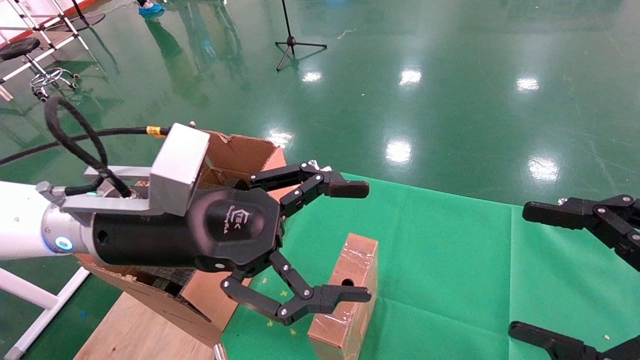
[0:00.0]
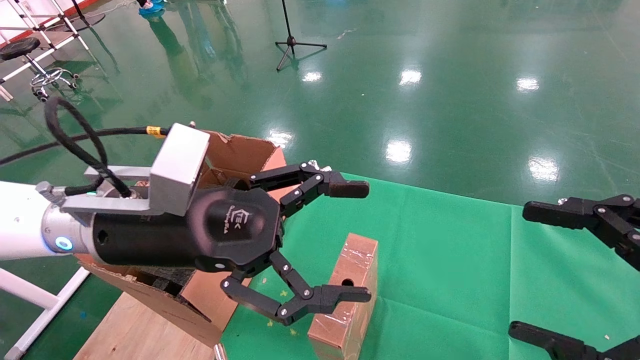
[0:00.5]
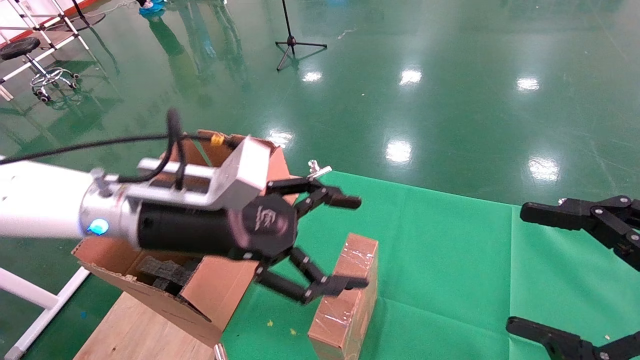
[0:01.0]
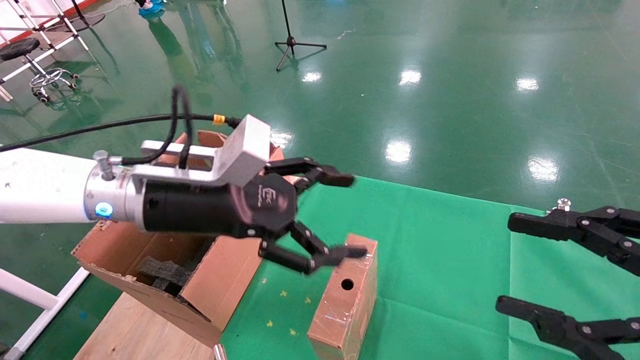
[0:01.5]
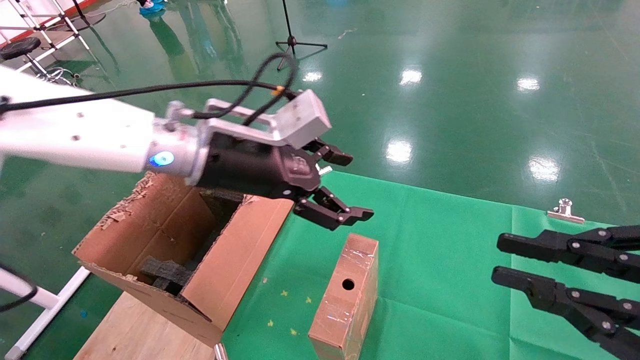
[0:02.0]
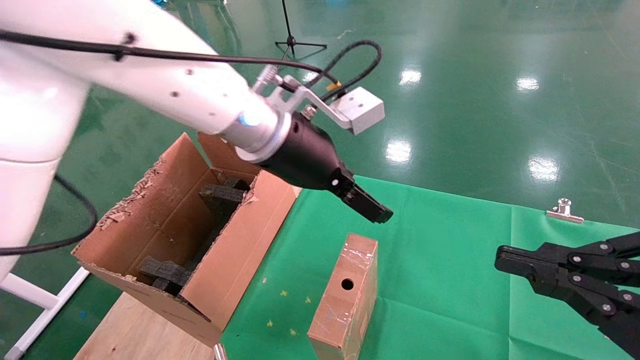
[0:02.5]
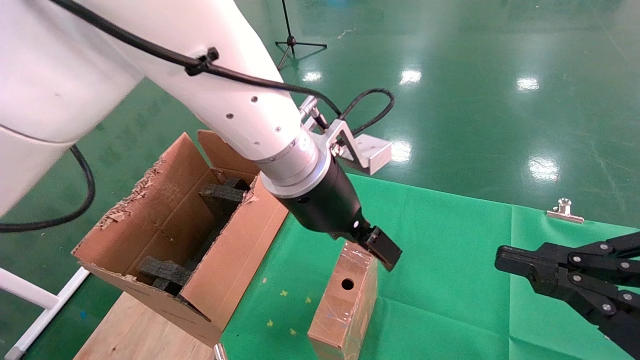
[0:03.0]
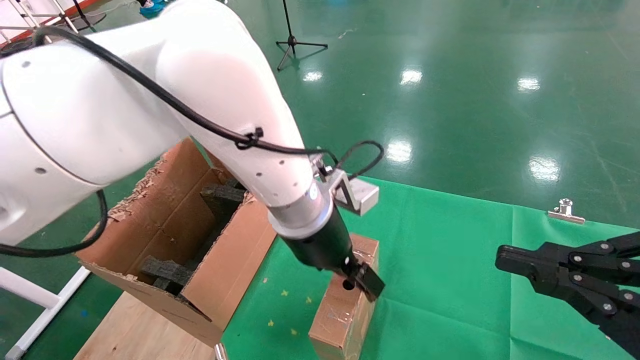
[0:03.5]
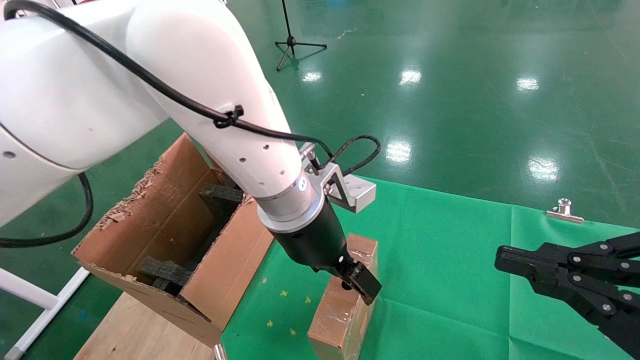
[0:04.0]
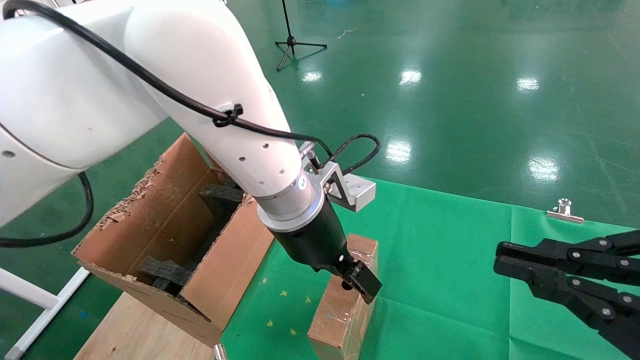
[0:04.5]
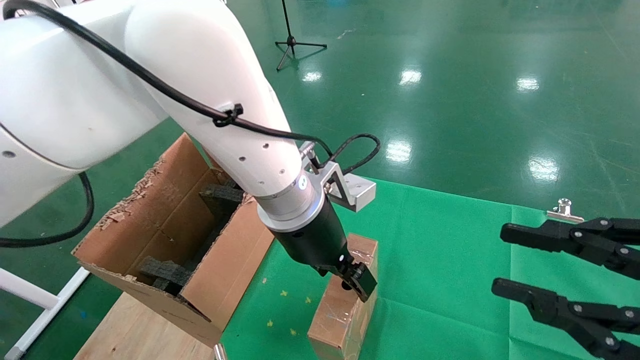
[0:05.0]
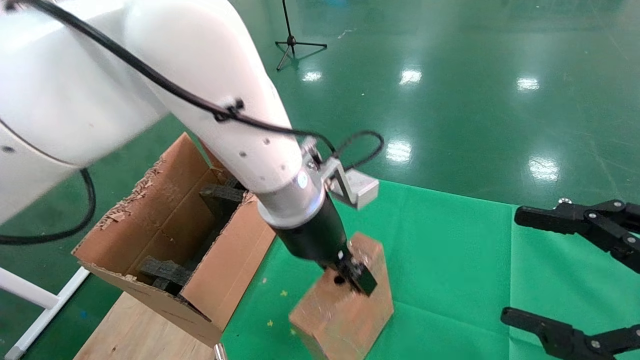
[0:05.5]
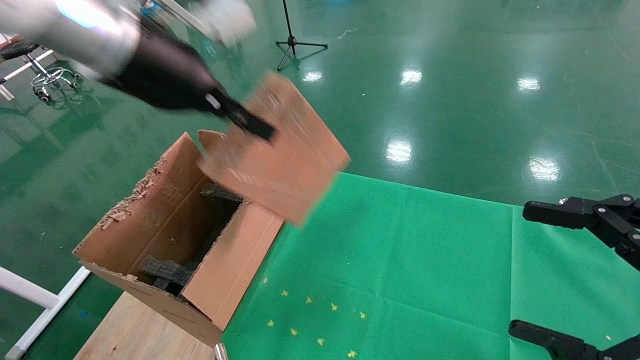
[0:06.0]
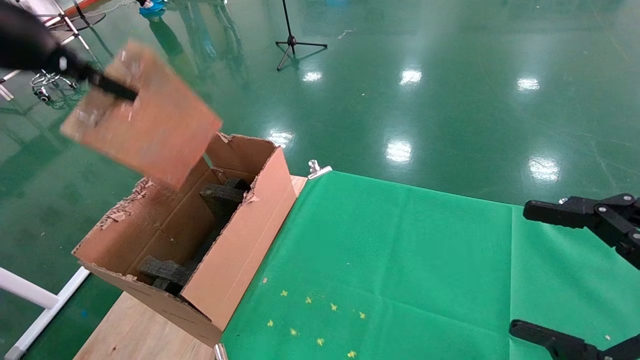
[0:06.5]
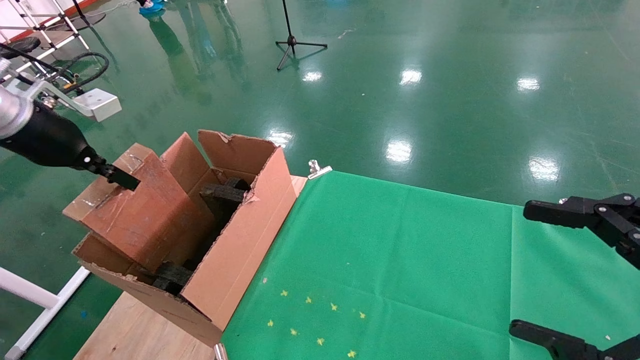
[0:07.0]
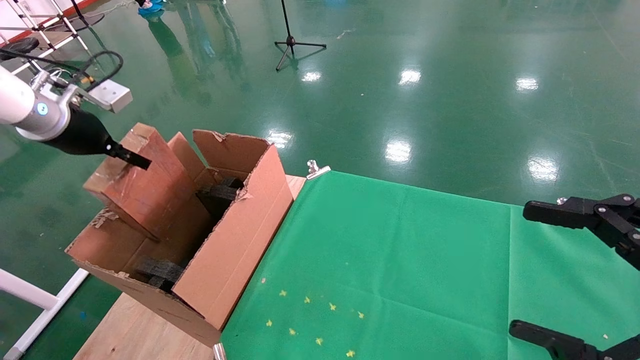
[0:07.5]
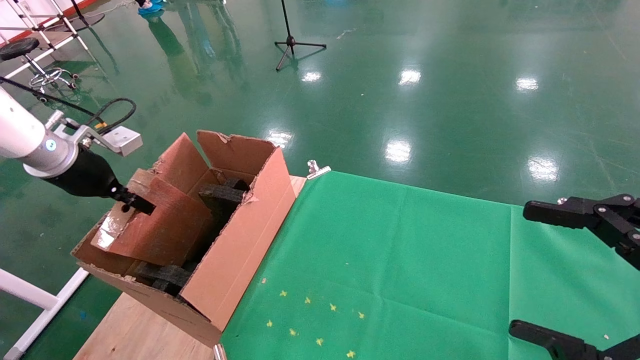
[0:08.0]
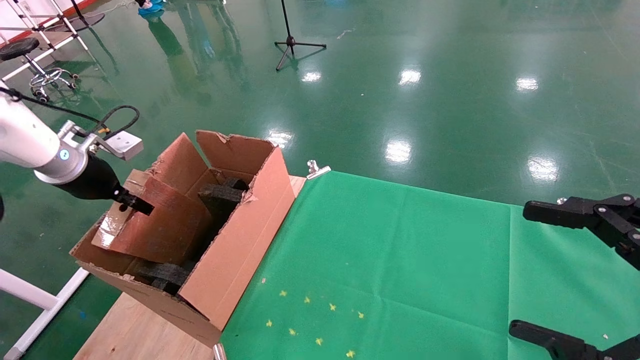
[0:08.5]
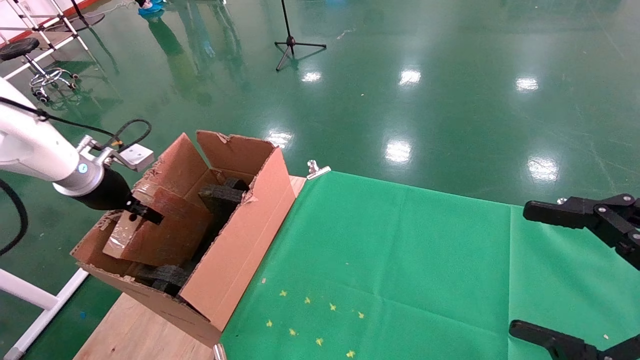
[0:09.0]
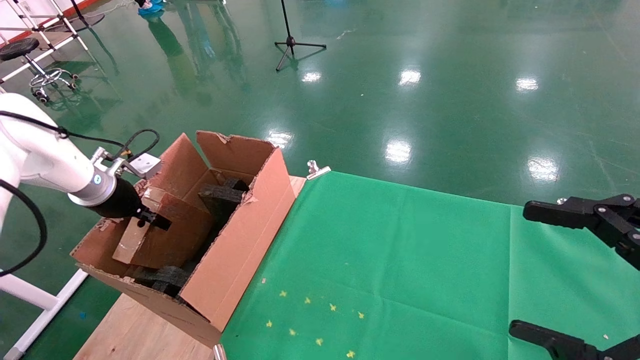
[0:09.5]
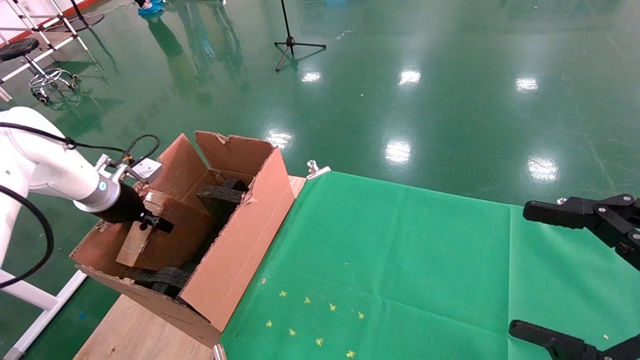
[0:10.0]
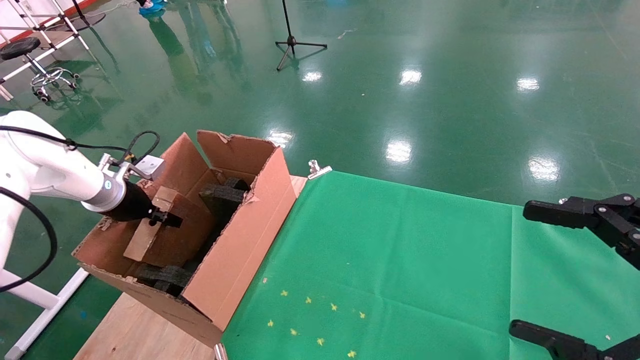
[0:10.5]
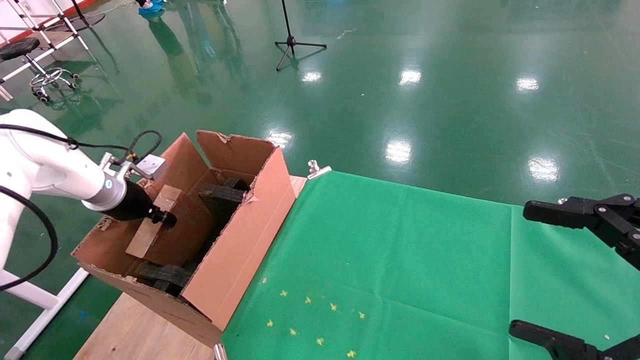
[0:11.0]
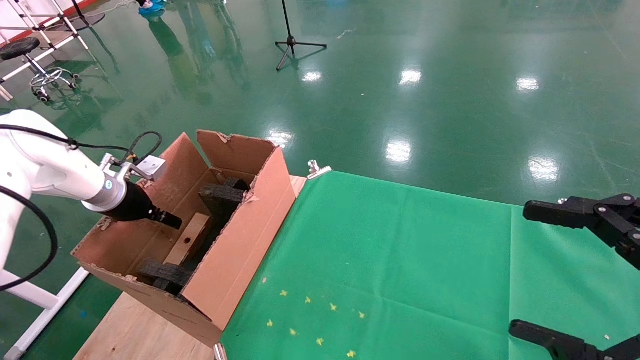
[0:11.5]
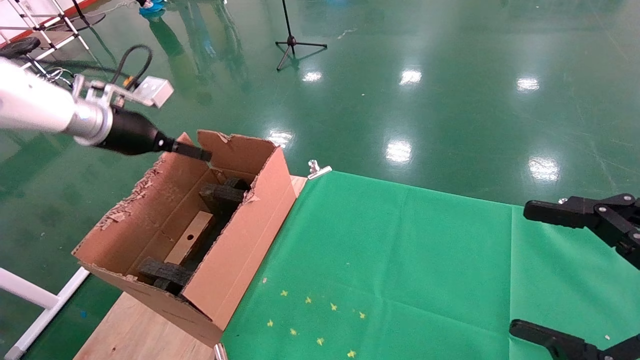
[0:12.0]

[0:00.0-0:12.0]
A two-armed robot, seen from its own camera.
Task of the whole recording: using a robotic arm to pick up a cardboard box and palace it the carton.
Step, 0:01.0 to 0:05.0: Pick up the mouse and the power cord paper box.
Step, 0:05.5 to 0:11.5: Place the mouse and the power cord paper box into the container.
0:00.0 to 0:02.0: The right gripper closes; the left gripper travels forward by about 10 cm.
0:02.0 to 0:04.0: The left gripper goes roughly 10 cm to the right.
0:04.0 to 0:06.0: The right gripper opens its fingers; the left gripper heads upward and to the left, covering approximately 25 cm, and closes.
0:06.0 to 0:08.0: The left gripper shifts approximately 30 cm to the left and downward.
0:08.0 to 0:10.0: The left gripper travels downward by roughly 10 cm.
0:10.0 to 0:12.0: The left gripper goes roughly 10 cm upward, and opens.

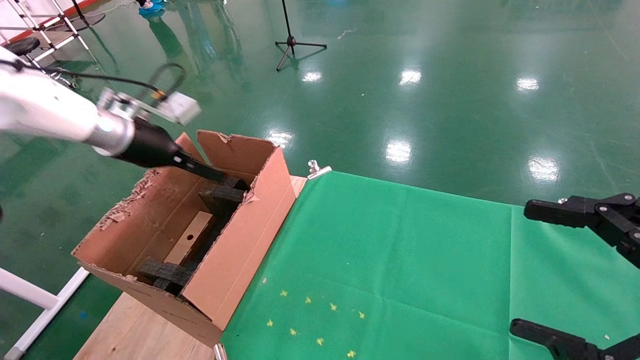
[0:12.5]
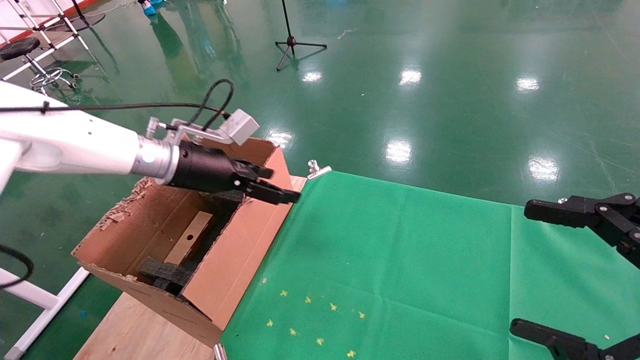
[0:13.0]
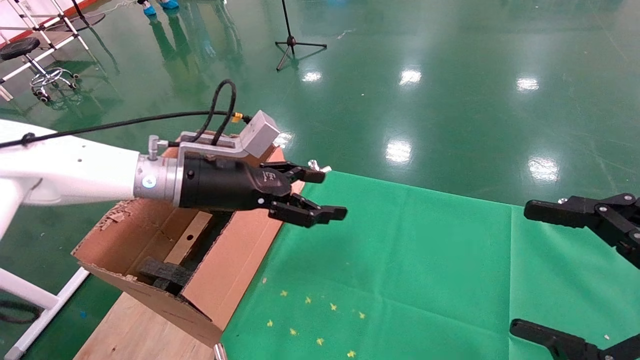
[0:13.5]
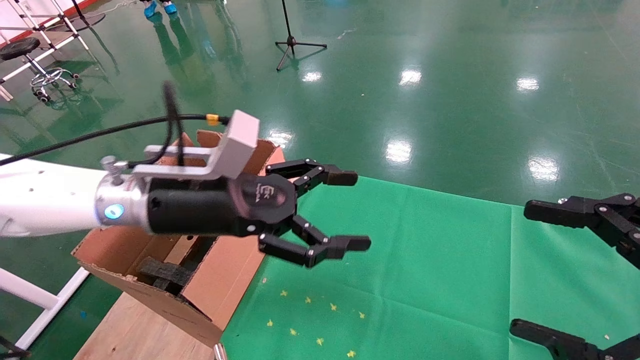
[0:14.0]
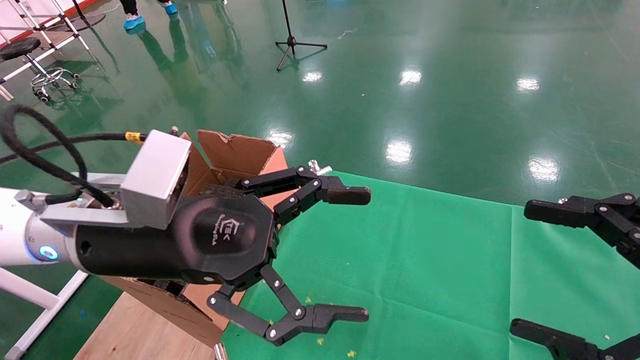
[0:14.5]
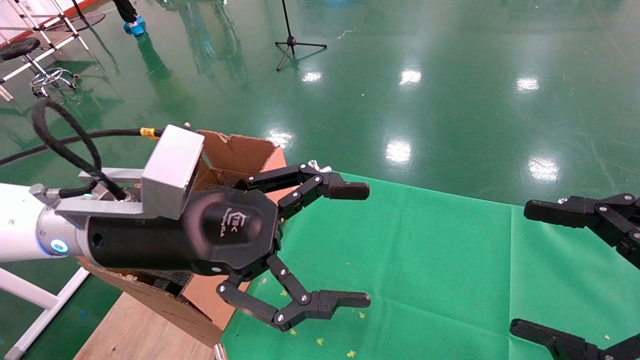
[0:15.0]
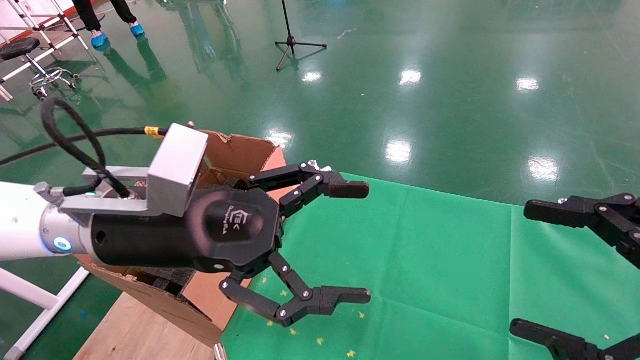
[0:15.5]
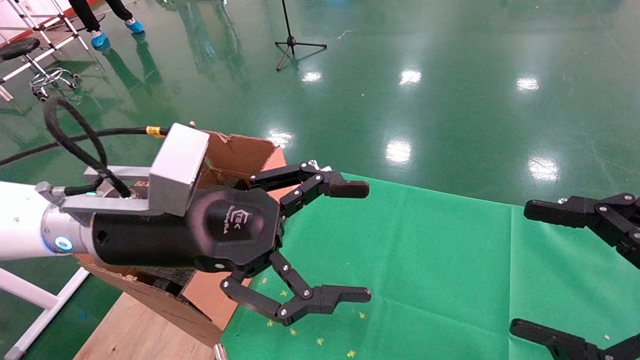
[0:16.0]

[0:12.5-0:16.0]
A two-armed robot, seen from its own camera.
Task of the whole recording: using a robotic arm to pick up a cardboard box and palace it the carton.
0:12.5 to 0:14.5: The left gripper travels backward and to the right by about 25 cm.
0:14.5 to 0:16.0: Both grippers stay about where they are.

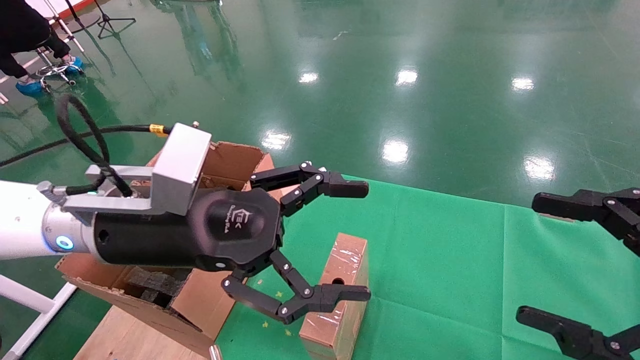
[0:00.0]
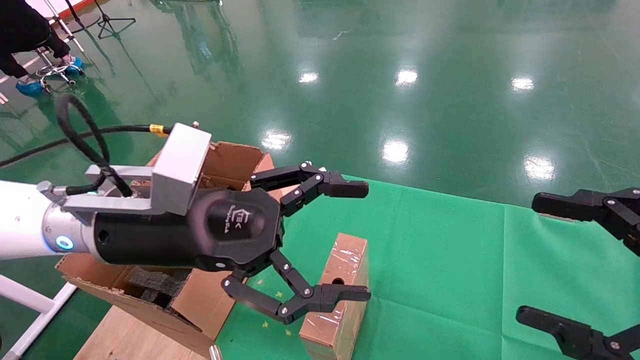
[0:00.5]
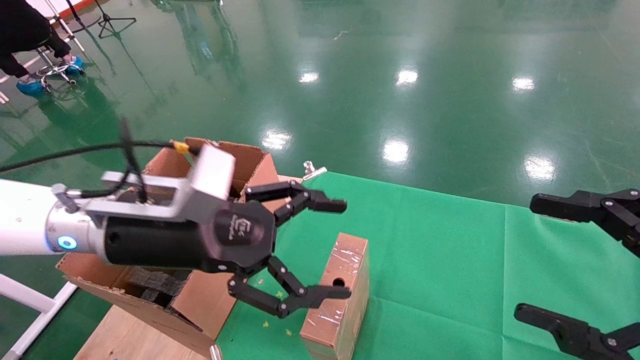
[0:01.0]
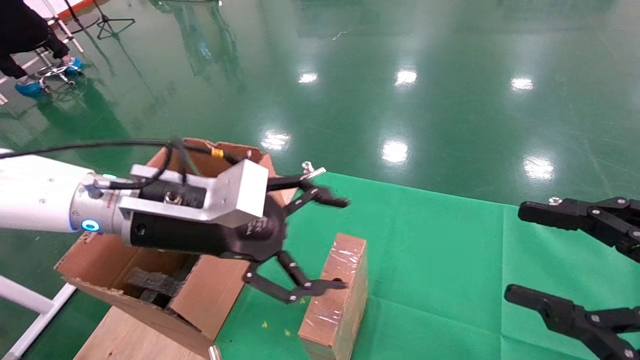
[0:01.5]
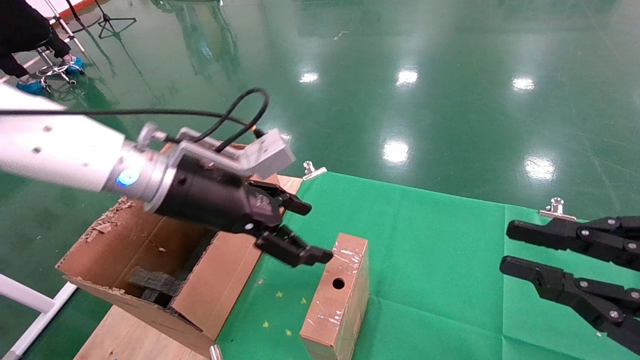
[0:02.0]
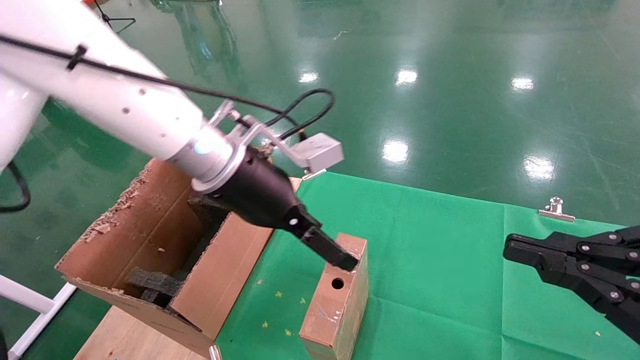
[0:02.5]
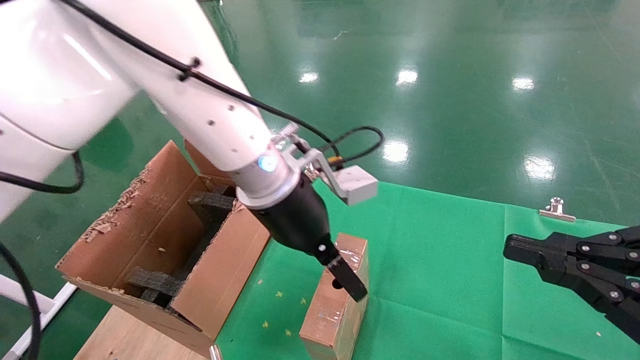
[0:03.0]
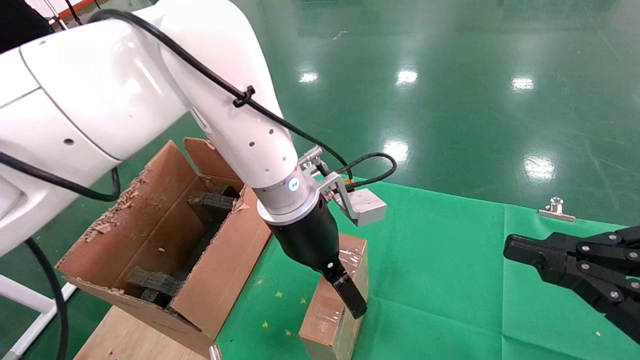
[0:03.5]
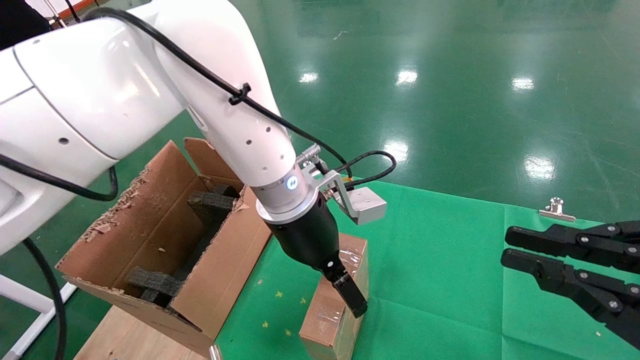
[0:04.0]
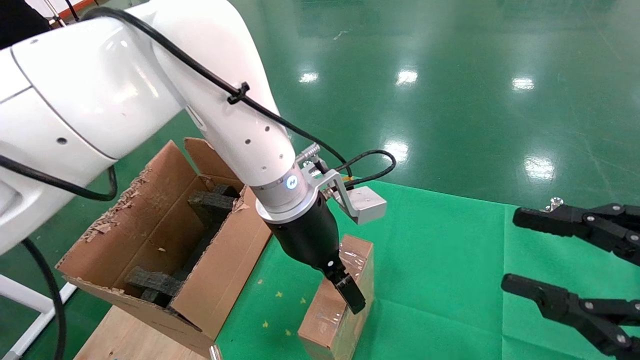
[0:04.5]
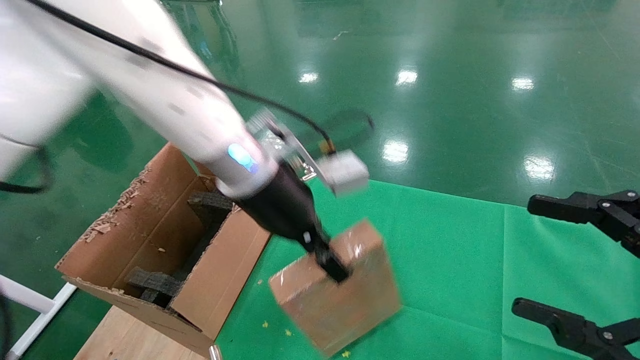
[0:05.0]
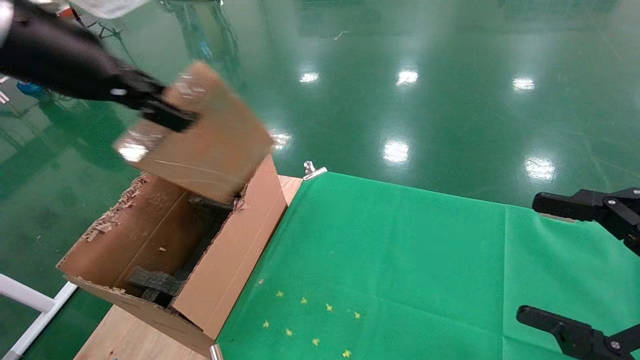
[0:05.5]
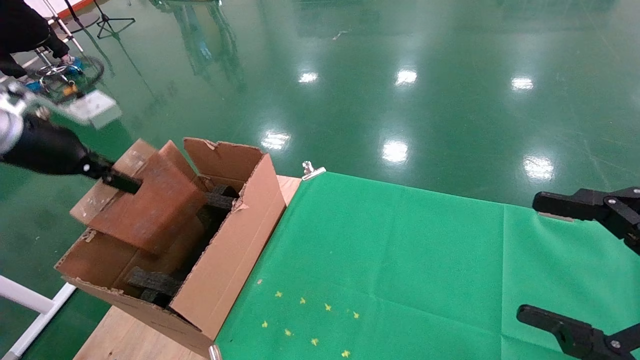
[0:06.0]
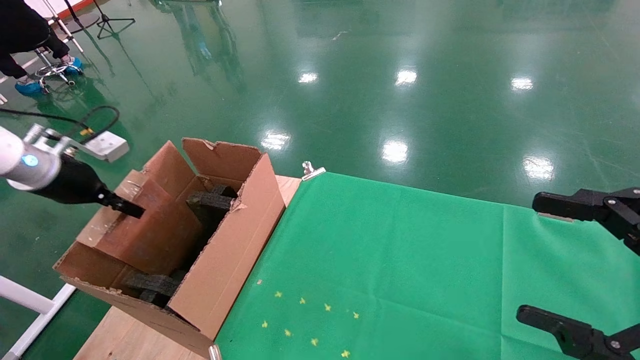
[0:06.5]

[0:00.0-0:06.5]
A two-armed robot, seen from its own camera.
Task of the whole recording: using a robotic arm to pick up a cardboard box and palace it the carton.
Step, 0:01.5 to 0:04.5: Pick up the mouse and the power cord paper box.
0:00.0 to 0:02.0: The right gripper closes up; the left gripper moves forward, roughly 5 cm.
0:02.0 to 0:04.5: The left gripper shifts approximately 15 cm to the right.
0:04.5 to 0:06.5: The left gripper goes roughly 40 cm to the left, and closes its fingers. Meanwhile the right gripper opens up.
